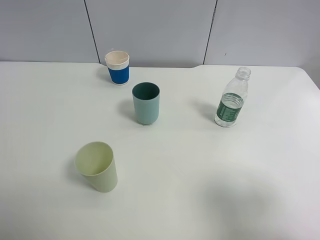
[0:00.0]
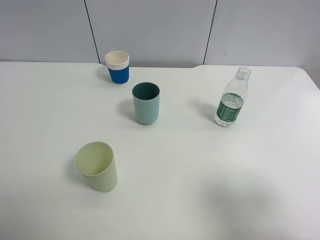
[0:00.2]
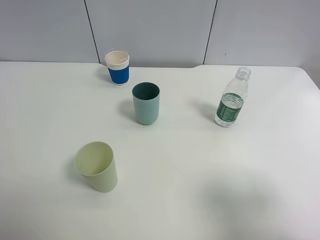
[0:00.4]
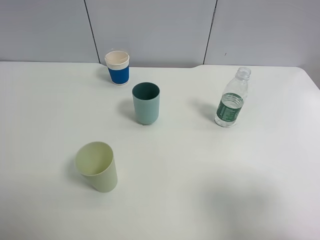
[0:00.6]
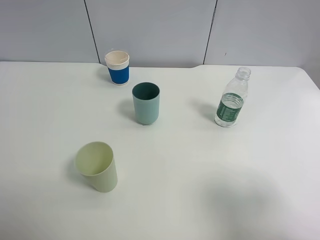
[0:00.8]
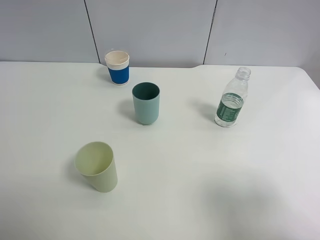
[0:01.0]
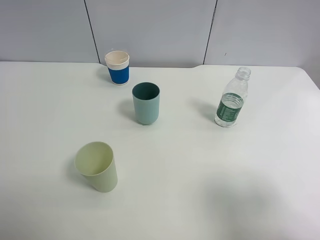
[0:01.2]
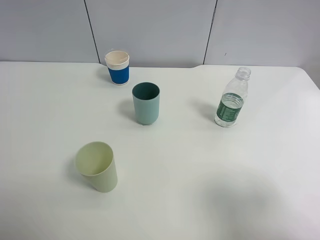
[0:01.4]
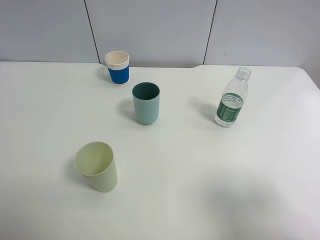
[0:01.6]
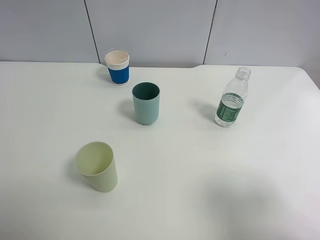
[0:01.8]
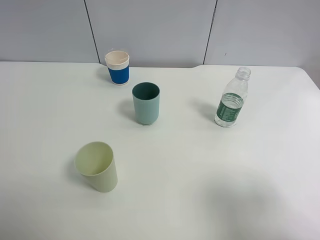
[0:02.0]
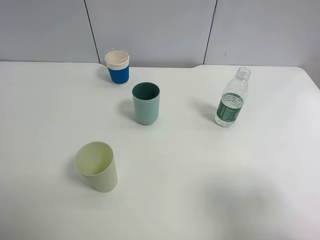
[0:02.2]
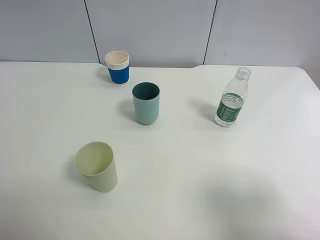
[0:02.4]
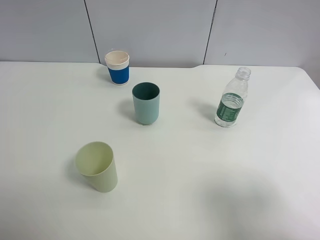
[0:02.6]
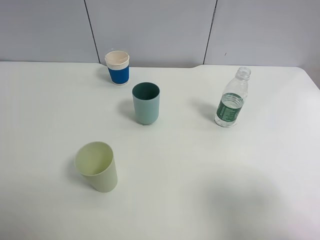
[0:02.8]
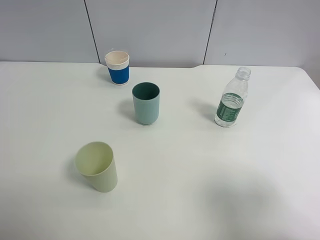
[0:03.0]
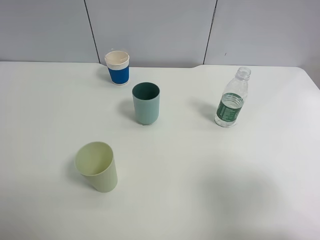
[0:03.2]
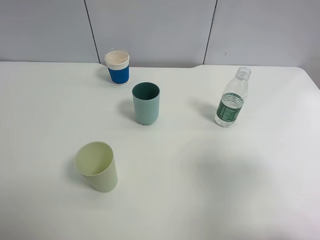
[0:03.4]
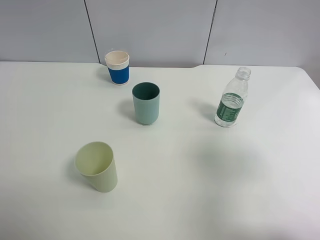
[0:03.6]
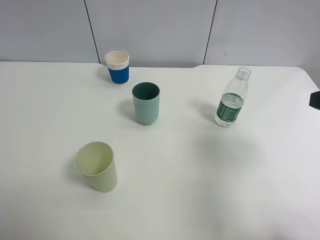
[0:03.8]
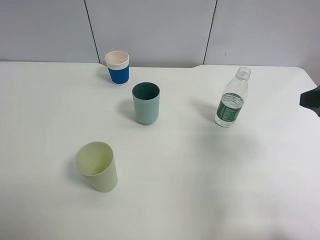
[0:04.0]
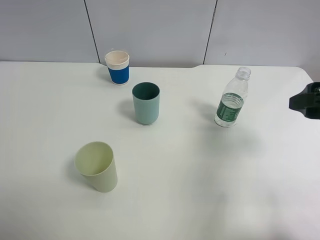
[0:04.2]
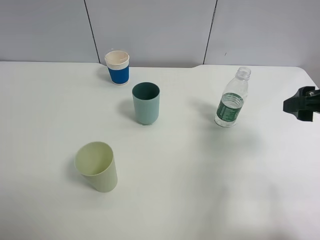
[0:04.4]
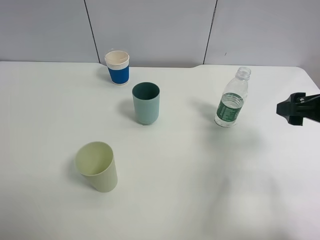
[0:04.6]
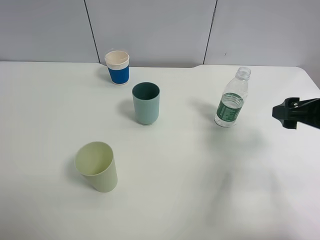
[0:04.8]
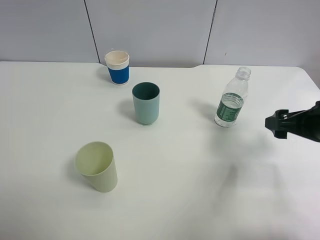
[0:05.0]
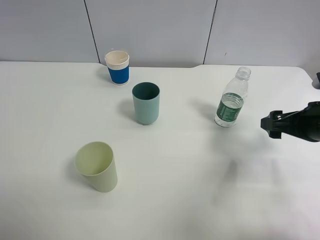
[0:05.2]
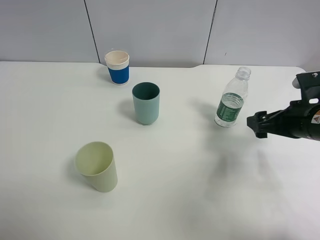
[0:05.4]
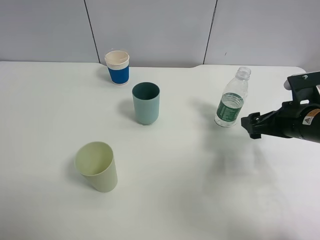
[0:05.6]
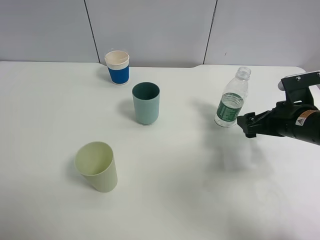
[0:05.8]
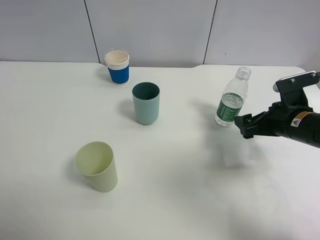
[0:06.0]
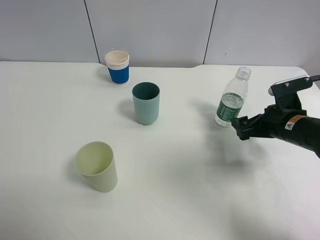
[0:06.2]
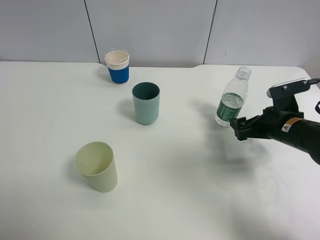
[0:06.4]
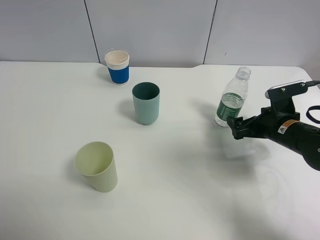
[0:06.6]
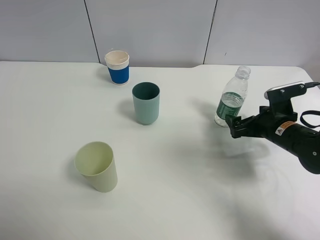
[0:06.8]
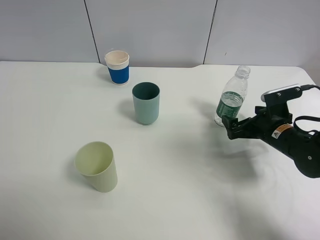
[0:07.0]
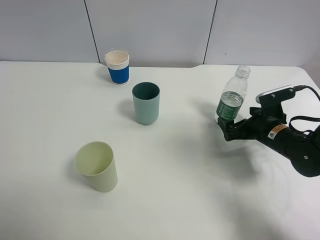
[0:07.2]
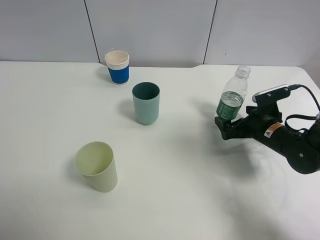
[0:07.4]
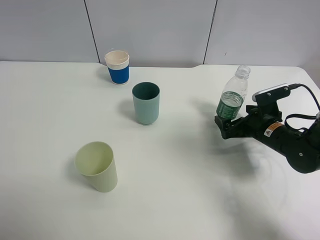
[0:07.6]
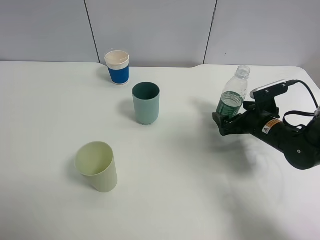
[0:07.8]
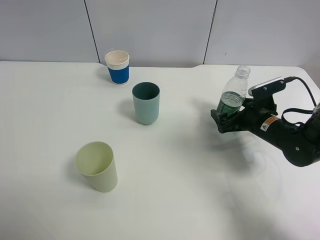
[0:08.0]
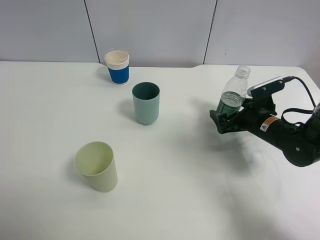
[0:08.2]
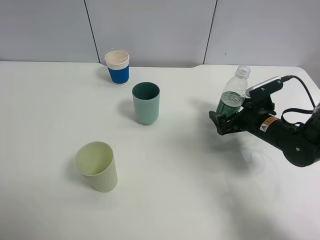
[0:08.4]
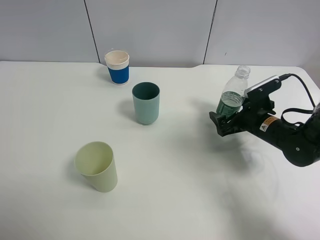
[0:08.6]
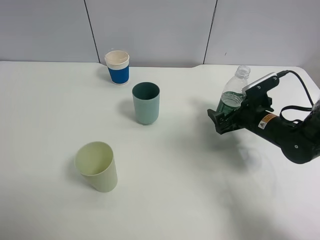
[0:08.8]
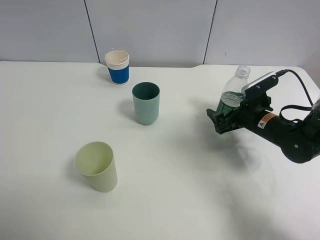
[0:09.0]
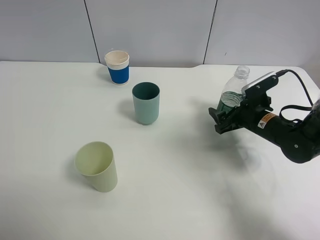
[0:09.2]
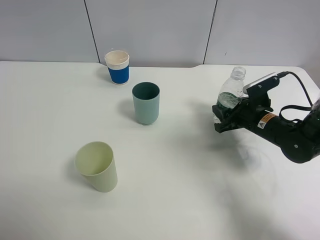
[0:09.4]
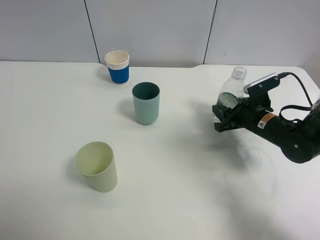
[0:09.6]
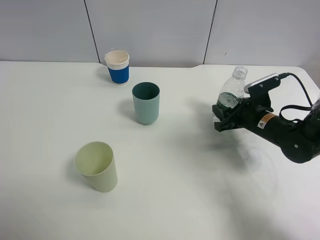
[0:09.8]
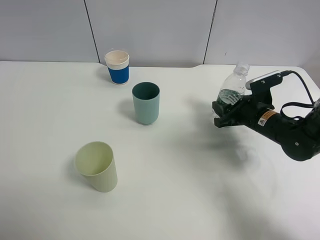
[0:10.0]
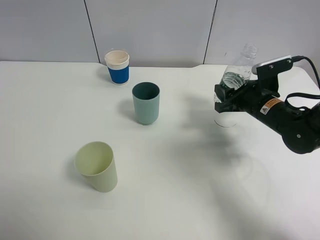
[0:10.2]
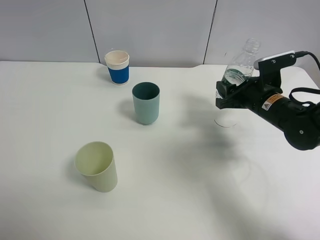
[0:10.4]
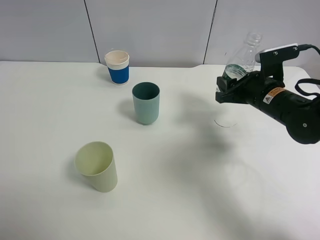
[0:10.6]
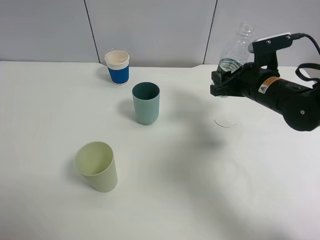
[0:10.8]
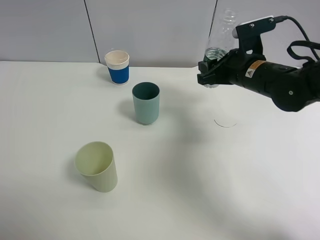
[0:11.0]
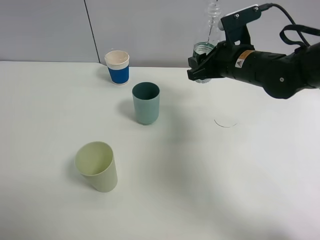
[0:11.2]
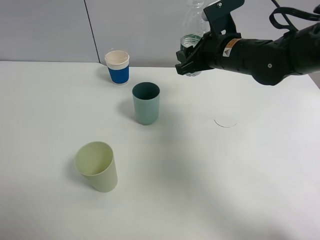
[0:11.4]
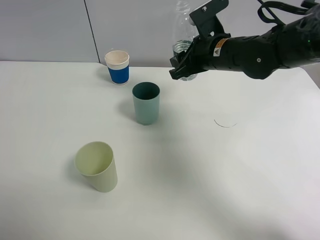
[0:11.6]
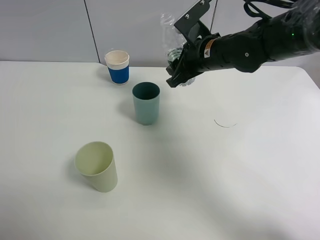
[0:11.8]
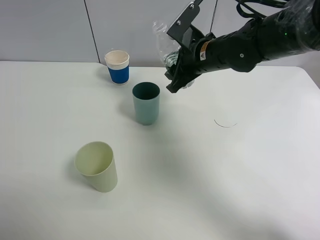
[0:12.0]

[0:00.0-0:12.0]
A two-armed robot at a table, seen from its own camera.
Task of the whole recording: use a clamp to hold the bottle of the drink, pour the beverage into a random cup, then clamp the cup containing the drink and pour the drink into another random cup.
Step, 0:00.0 to 0:10.2: Pick up the water bottle with right gripper.
0:00.0 to 0:03.0: Neither gripper changes place.
0:03.0 to 0:04.4: The right gripper moves forward, about 15 cm.
0:04.4 to 0:06.0: The right gripper is displaced downward and forward by approximately 15 cm.
0:06.0 to 0:07.6: The right gripper travels downward by some 5 cm.
0:07.6 to 0:09.0: The grippers make only small movements.
0:09.0 to 0:10.4: The right gripper is displaced upward by some 5 cm, and closes its fingers.
0:10.4 to 0:12.0: The right gripper goes roughly 15 cm to the left, upward and forward.

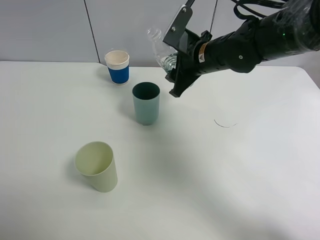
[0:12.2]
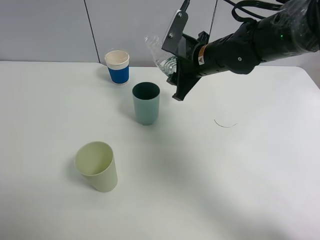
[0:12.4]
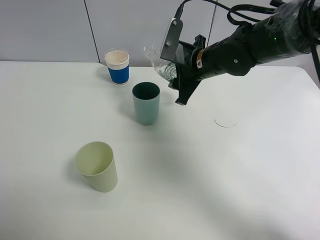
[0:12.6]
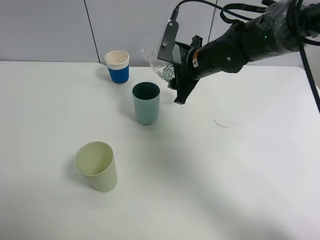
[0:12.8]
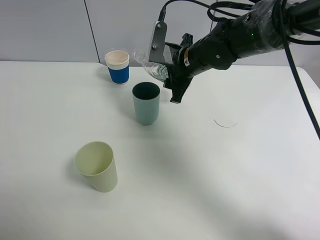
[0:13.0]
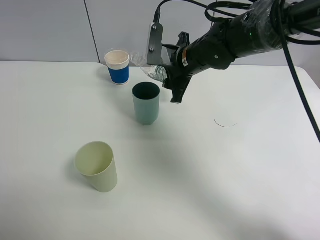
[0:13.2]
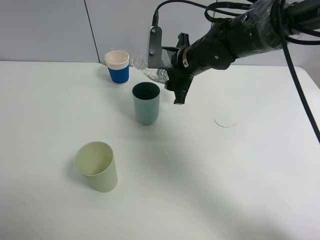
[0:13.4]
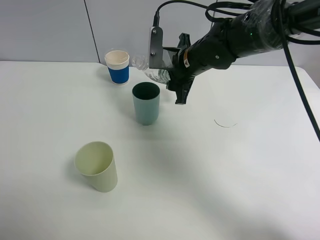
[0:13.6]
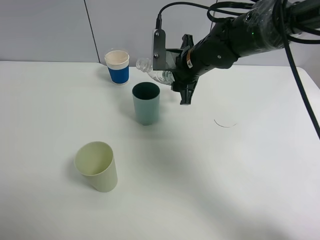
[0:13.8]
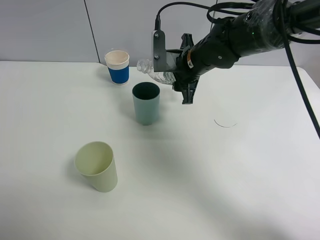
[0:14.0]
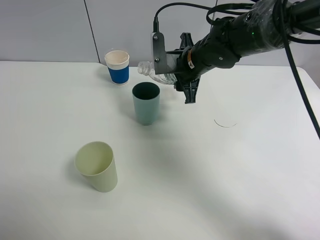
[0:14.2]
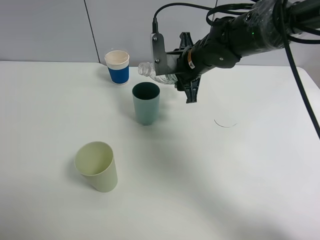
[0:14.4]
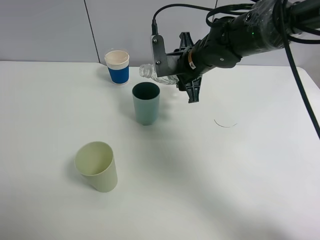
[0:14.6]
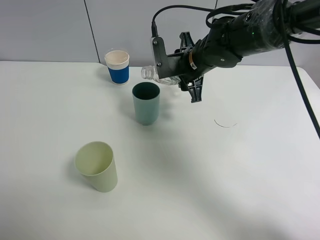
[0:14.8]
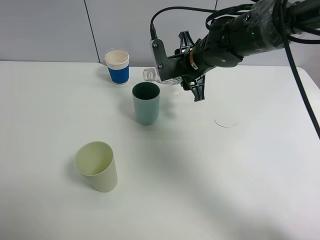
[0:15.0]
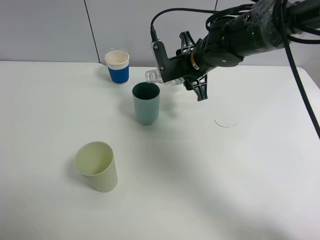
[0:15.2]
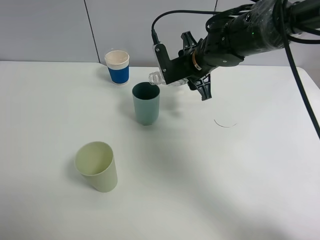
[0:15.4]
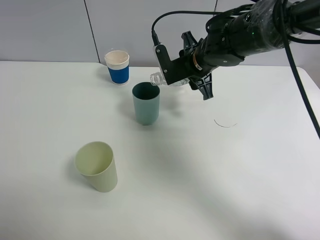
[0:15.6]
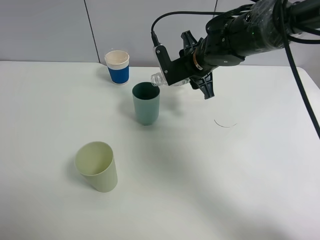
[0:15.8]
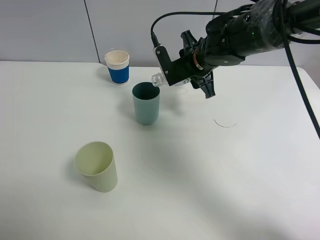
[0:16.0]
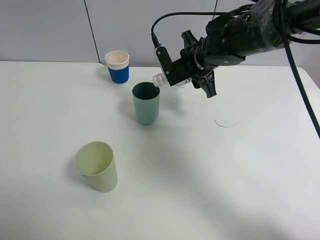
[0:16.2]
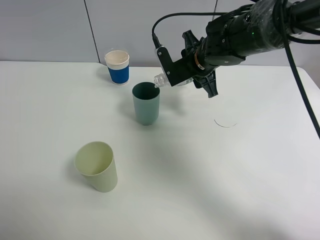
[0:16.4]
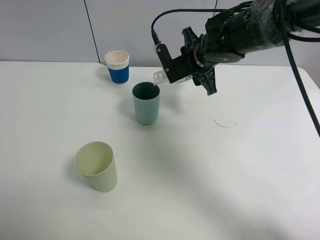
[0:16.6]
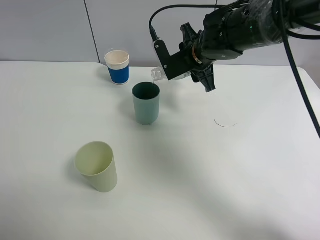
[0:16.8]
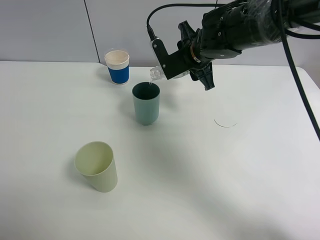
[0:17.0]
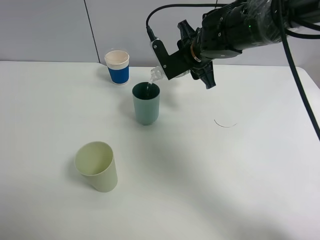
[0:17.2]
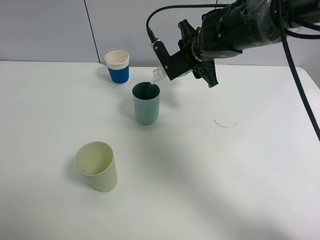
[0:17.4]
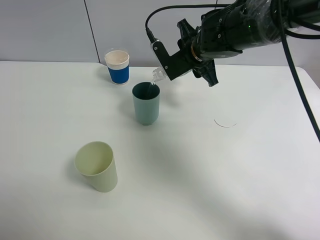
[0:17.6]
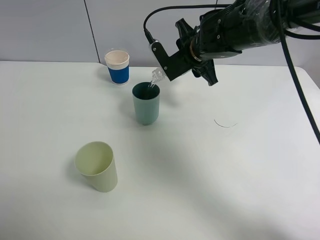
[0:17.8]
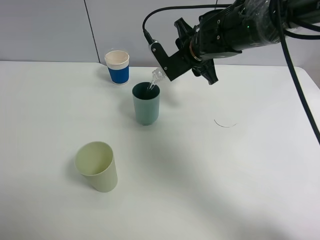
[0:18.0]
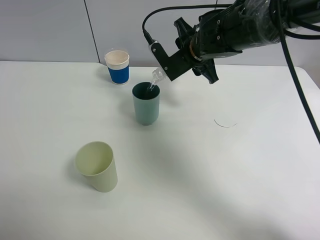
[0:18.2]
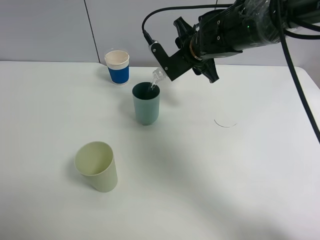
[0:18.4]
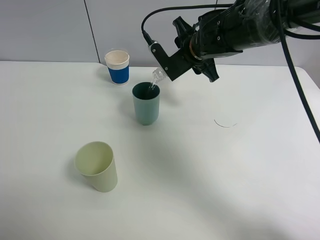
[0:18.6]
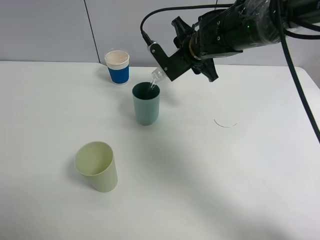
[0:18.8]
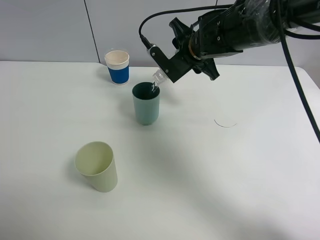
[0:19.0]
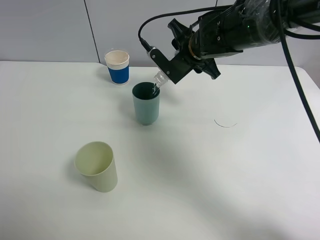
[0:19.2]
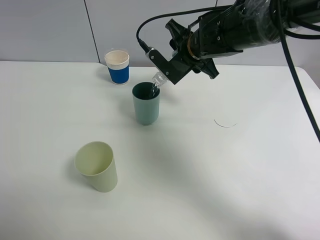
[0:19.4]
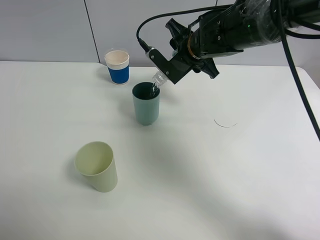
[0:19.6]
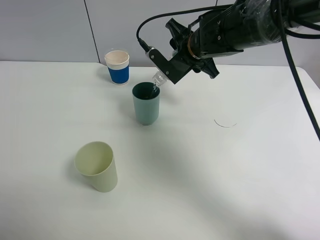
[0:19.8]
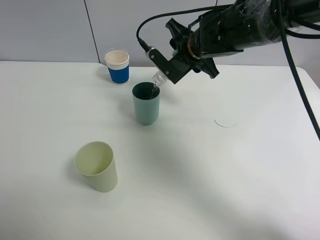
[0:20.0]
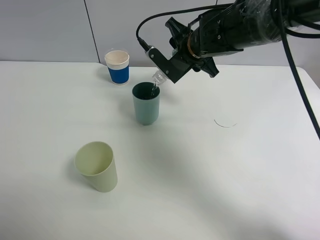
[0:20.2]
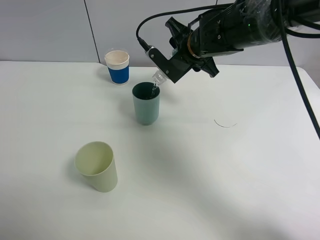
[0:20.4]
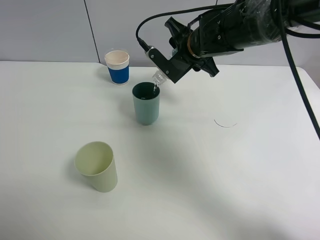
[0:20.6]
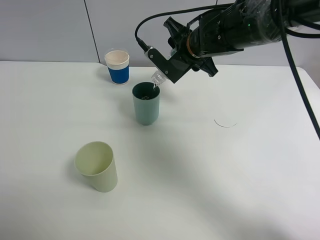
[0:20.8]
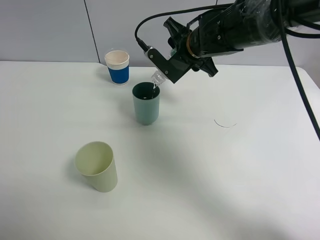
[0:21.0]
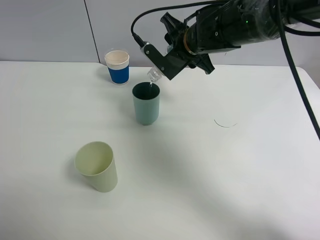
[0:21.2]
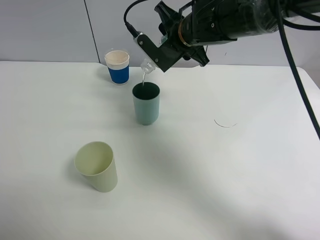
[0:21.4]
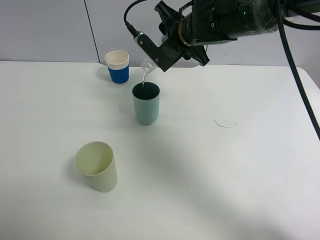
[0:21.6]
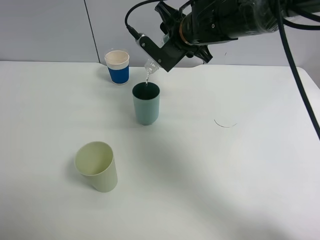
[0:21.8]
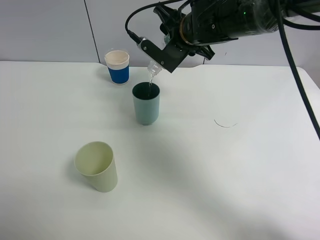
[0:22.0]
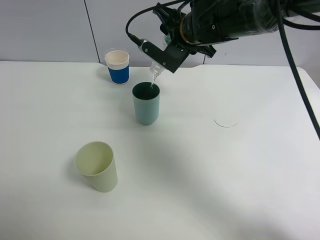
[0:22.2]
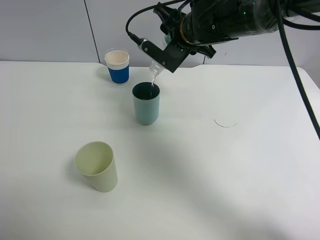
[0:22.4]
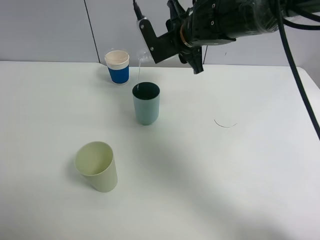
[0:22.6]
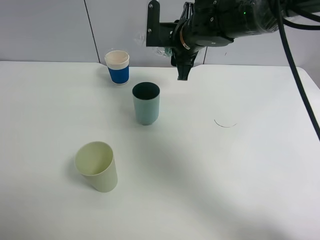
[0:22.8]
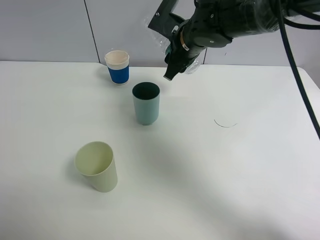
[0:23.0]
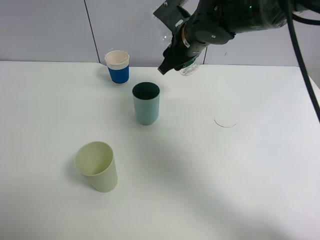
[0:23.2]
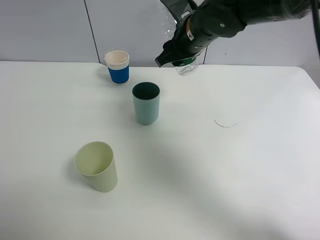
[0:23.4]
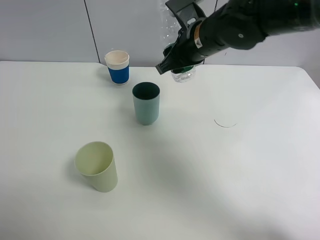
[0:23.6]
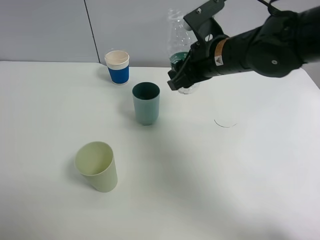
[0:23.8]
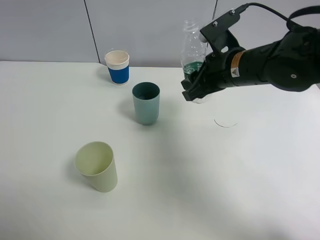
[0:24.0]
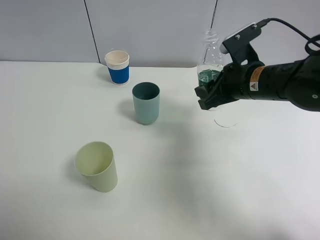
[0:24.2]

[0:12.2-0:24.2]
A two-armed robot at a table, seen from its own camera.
Task of the whole recording: use a clamp to hold the bottle of the drink, pour the beverage into a random cup, then clamp the cup containing the drink and pour the drink into another random cup.
Step, 0:12.2 to 0:23.0: Pour water into the blue plastic cup with right gripper.
0:15.2 to 0:16.6: The grippers stay close to where they were, moving slightly.
0:16.6 to 0:18.2: The grippers make only small movements.
0:18.2 to 0:21.2: There are only small adjustments of the grippers.
0:22.6 to 0:24.2: The right gripper is displaced to the right and backward by roughly 15 cm.
